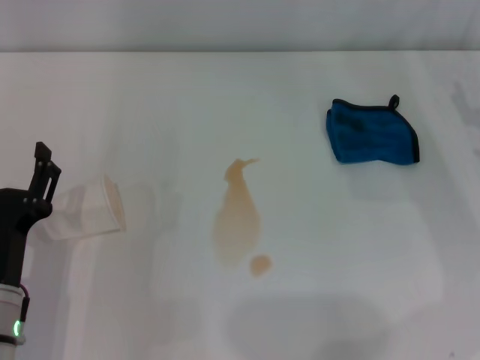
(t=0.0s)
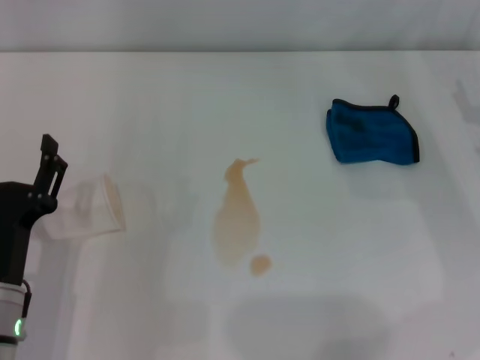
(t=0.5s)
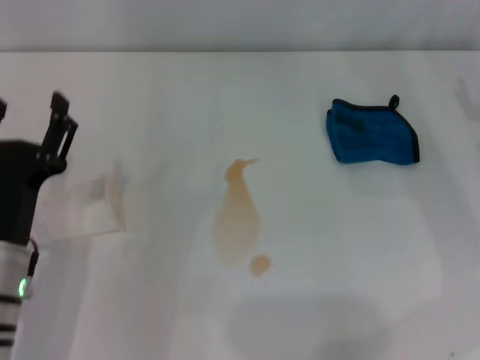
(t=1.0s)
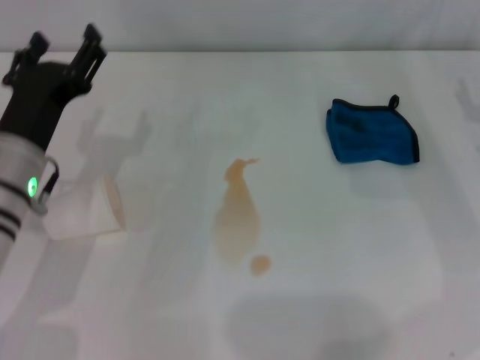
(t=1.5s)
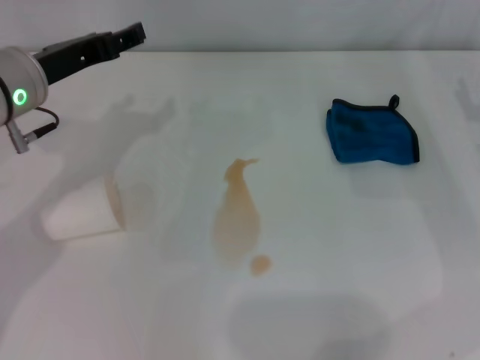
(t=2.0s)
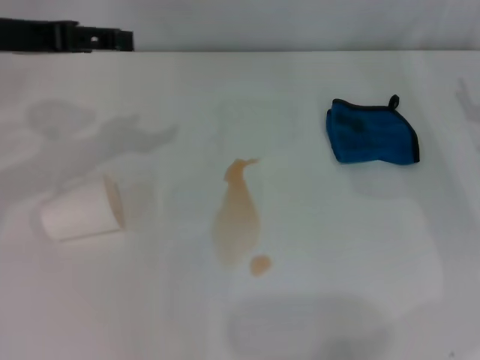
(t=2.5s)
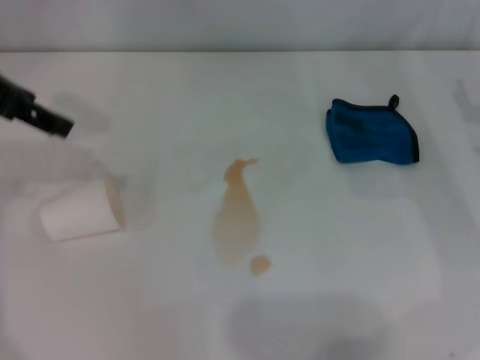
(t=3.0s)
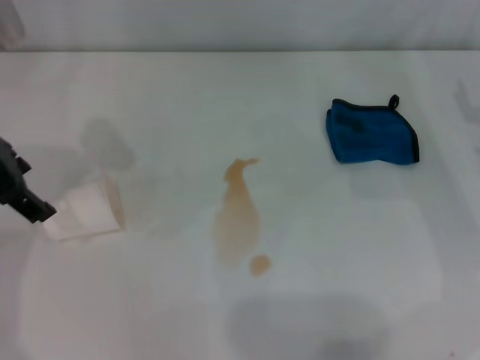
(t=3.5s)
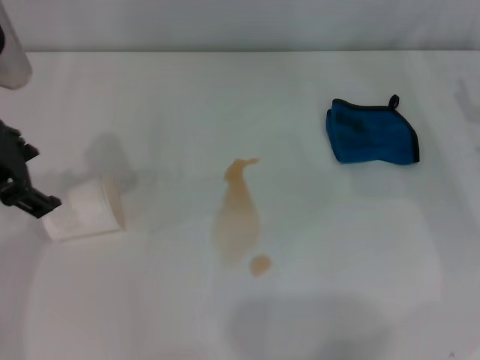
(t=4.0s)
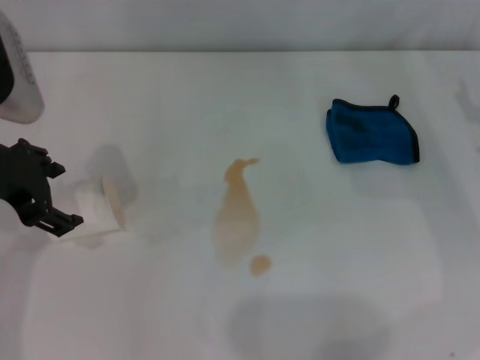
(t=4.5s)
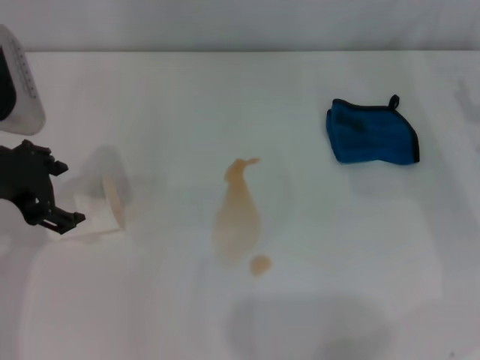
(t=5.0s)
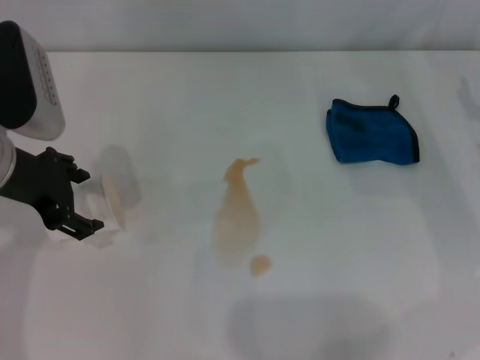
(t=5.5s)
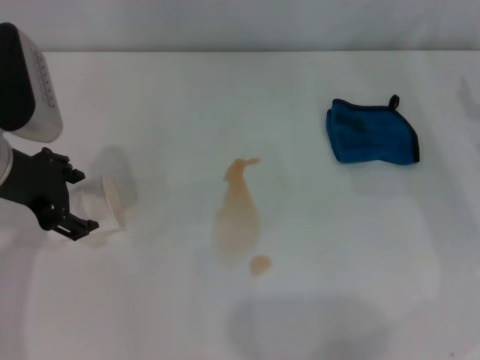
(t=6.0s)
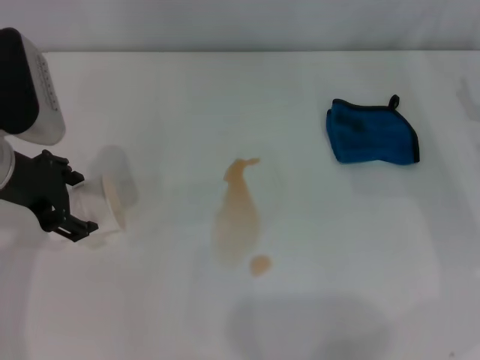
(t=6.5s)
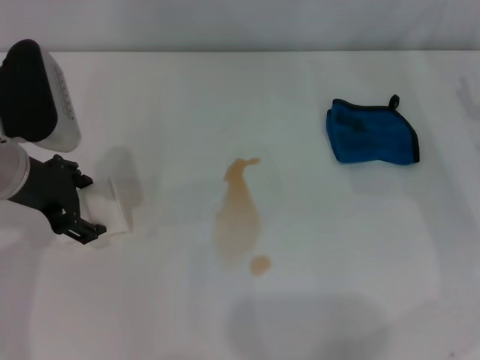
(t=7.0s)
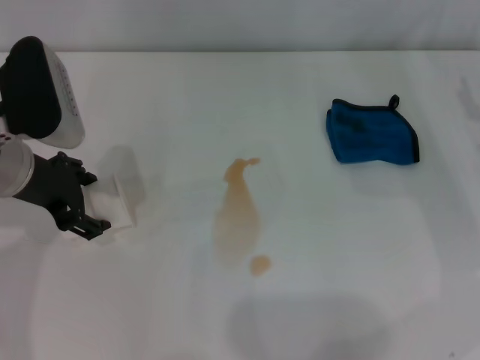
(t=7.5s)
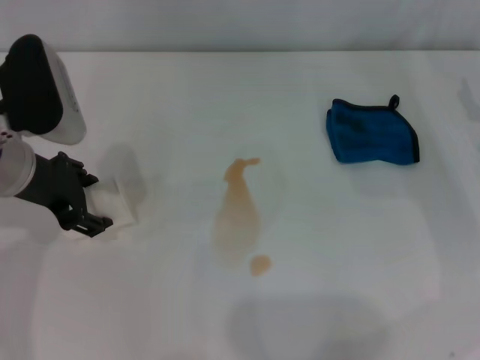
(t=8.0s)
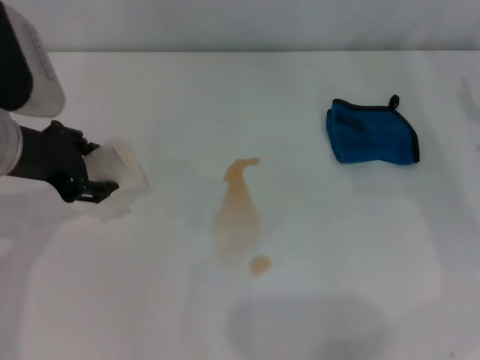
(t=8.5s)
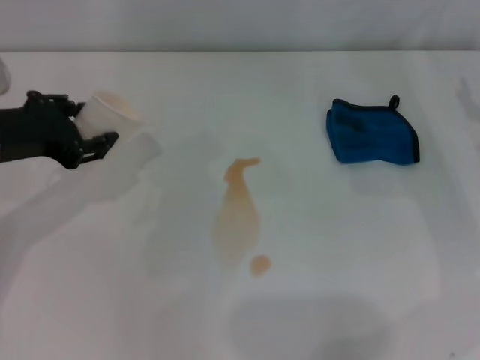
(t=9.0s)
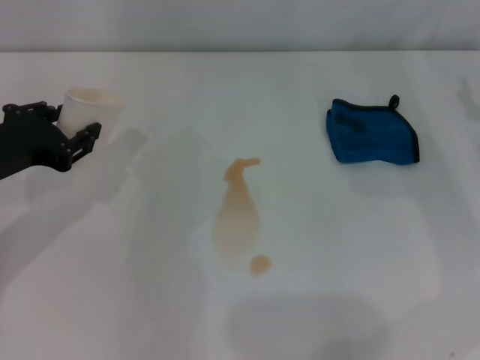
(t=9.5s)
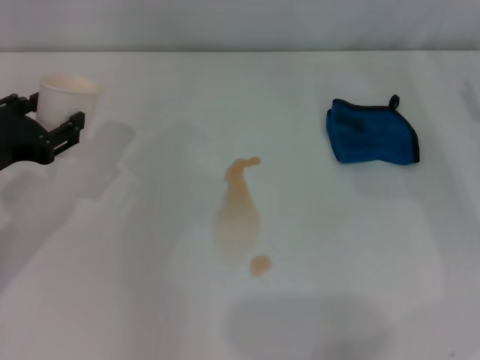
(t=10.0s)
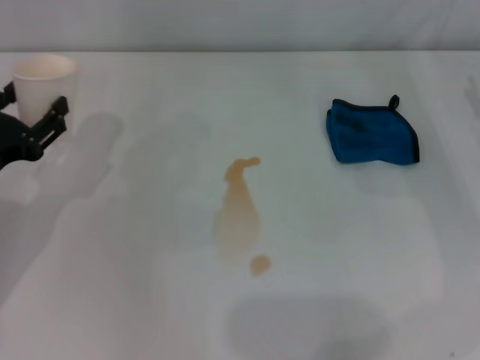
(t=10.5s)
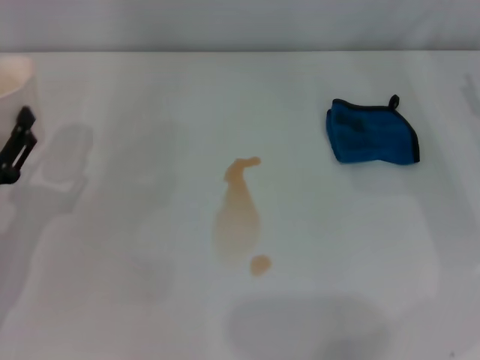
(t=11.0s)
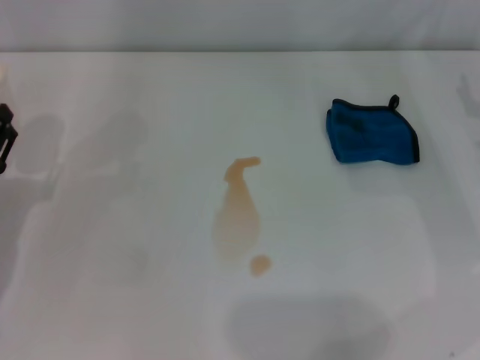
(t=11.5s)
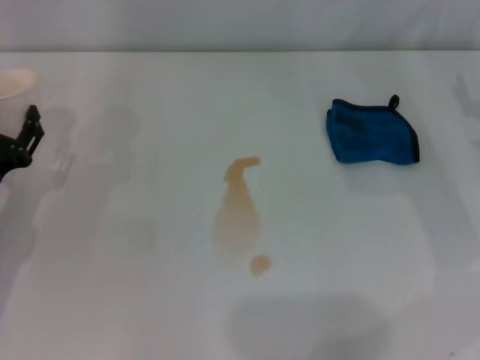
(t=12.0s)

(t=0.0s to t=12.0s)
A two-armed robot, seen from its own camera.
Step, t=0.0s - t=7.5s: Grasp the paper cup with the left gripper.
t=0.0s - t=2.0s: The left gripper travels forward and upward by roughly 20 cm.
t=2.0s - t=4.0s: The left gripper travels upward by roughly 5 cm.
t=4.0s - t=6.0s: The left gripper shifts roughly 5 cm downward.
t=6.0s - t=8.0s: The grippers make only small movements.
t=8.0s - t=10.0s: The left gripper shifts approximately 5 cm backward, and closes.
t=10.0s - t=12.0s: The left gripper shifts some 10 cm downward, and opens up.

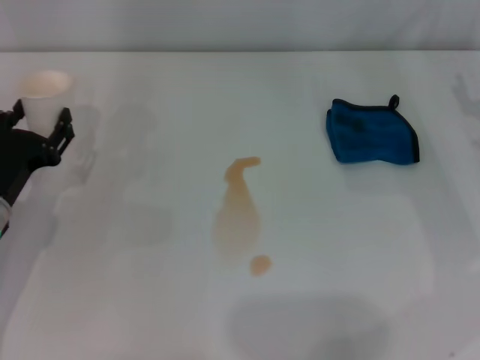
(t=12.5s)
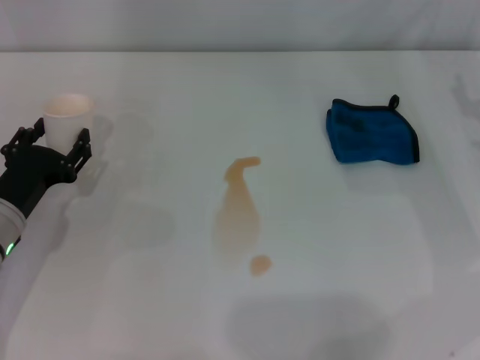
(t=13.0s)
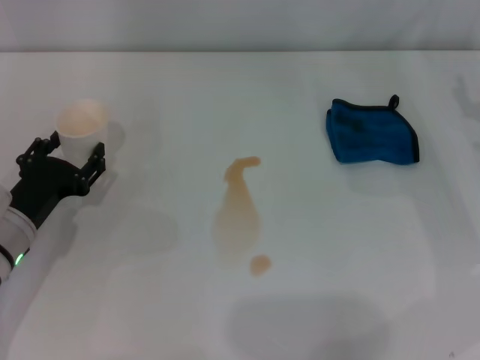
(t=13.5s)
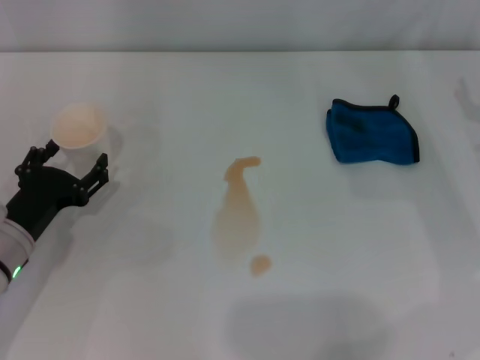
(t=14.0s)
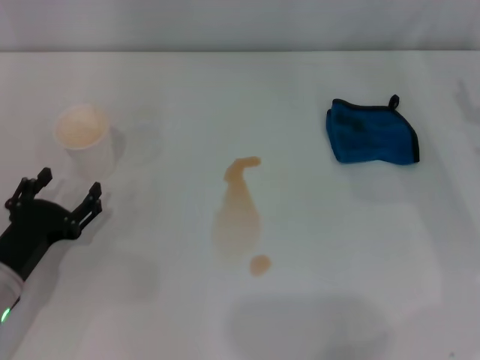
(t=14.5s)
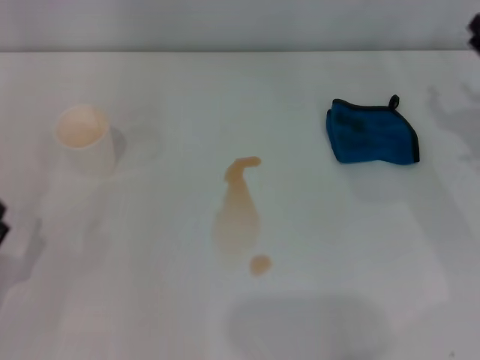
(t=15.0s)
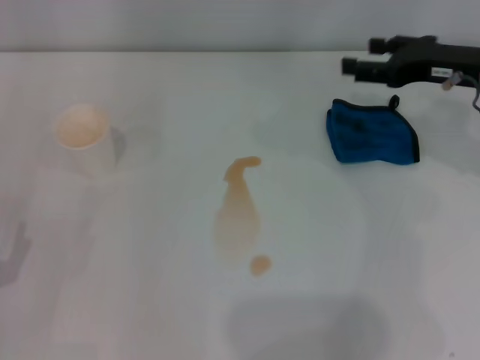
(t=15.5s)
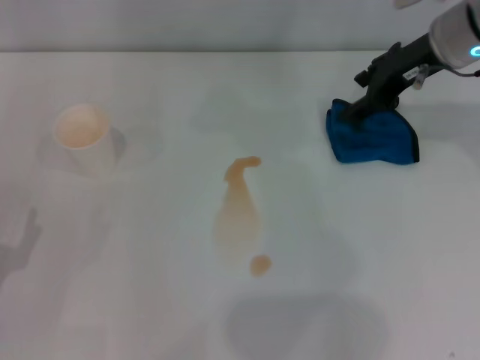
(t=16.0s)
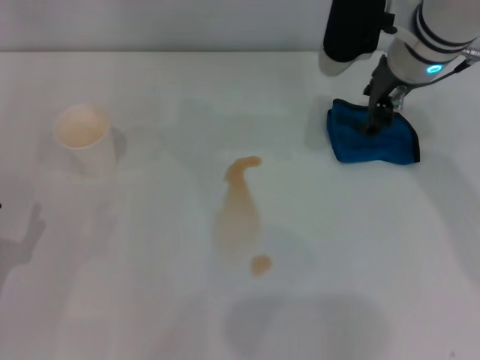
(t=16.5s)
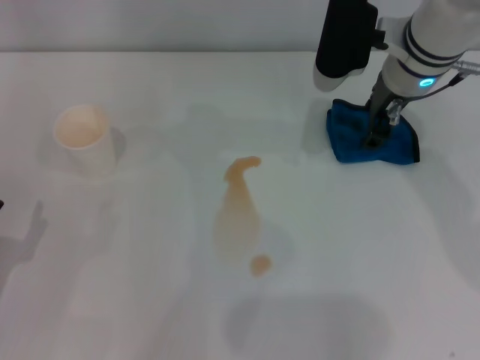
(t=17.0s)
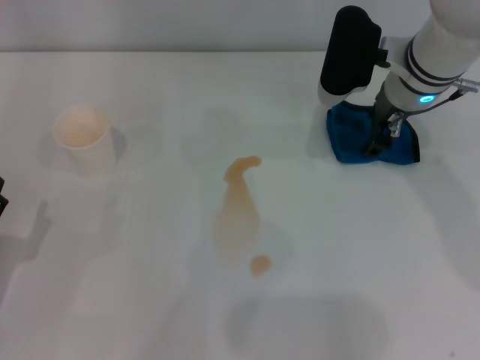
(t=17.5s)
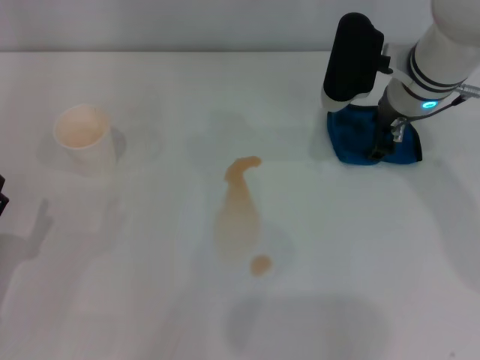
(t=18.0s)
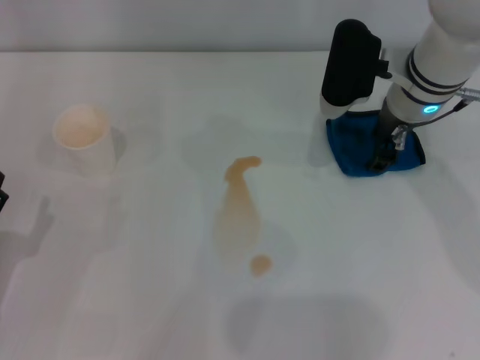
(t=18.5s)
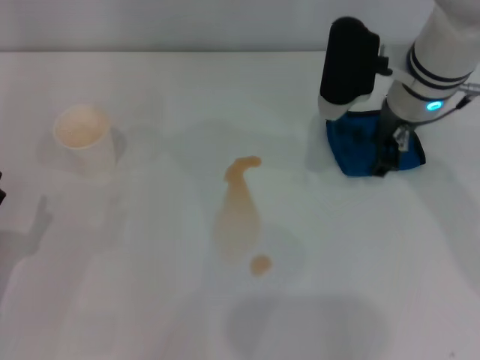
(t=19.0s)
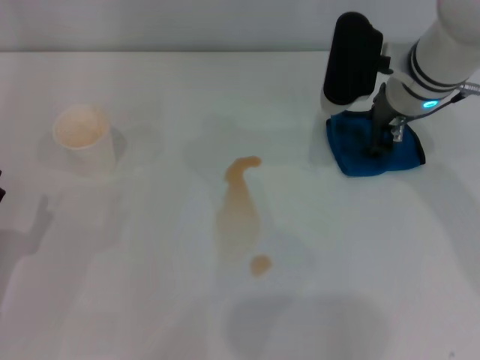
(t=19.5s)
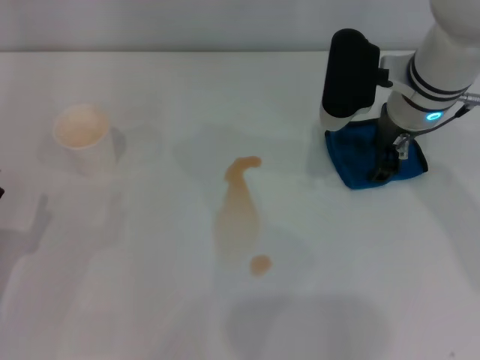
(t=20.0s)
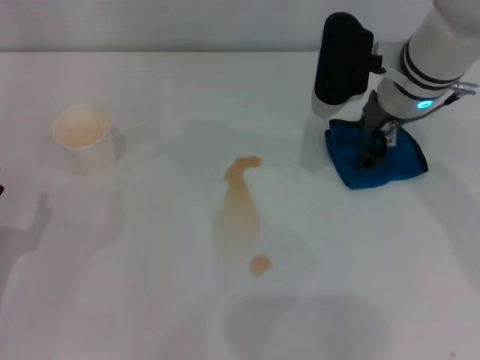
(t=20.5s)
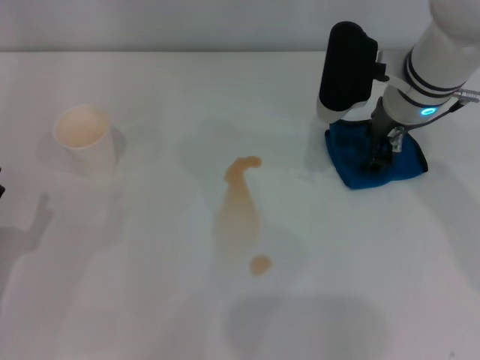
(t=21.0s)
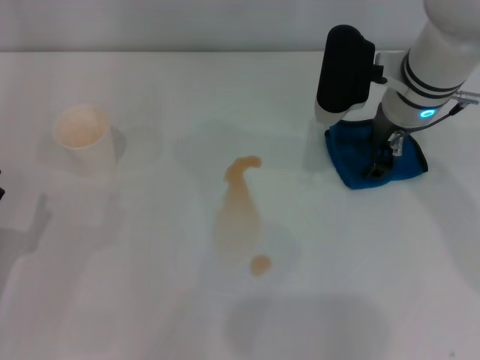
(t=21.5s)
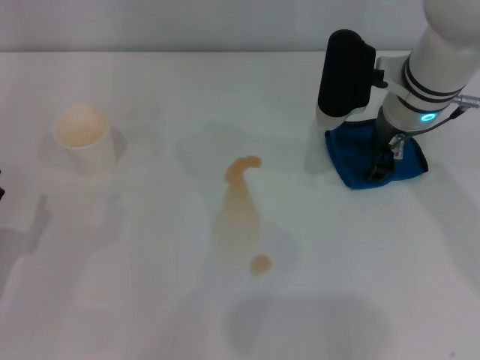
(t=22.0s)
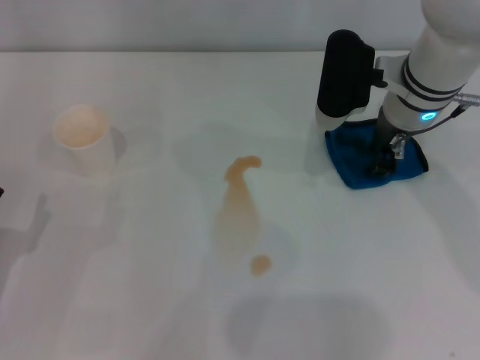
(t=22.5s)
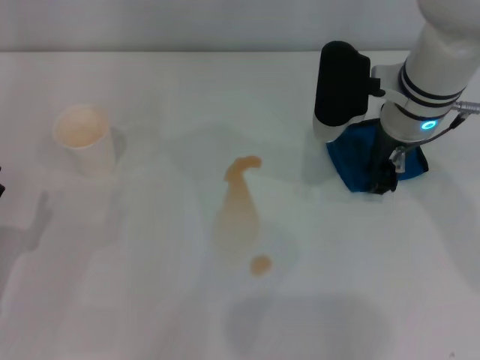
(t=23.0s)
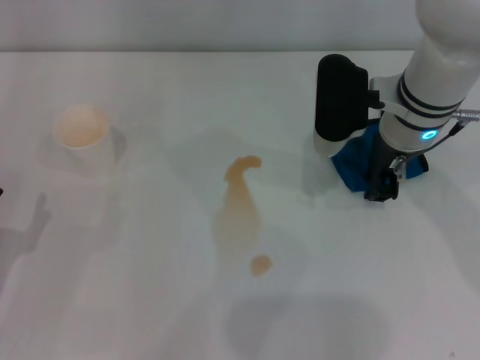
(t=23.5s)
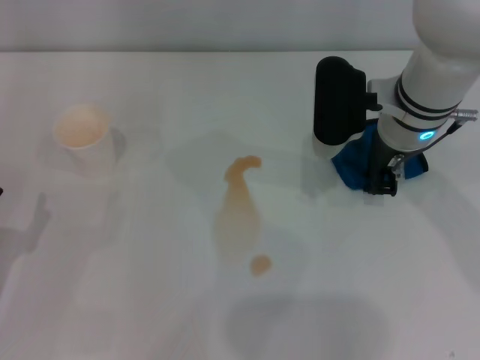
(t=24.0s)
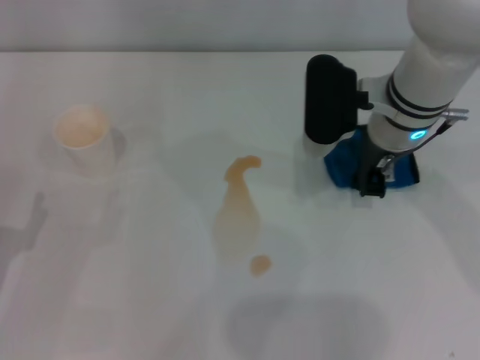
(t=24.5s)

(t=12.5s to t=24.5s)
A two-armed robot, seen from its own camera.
Step, t=14.0s - t=24.0s: Grasp the rag with the right gripper.
t=12.5s - t=14.5s: The left gripper heads backward, covering some 5 cm, and opens its fingers.
t=14.5s - t=16.5s: The right gripper shifts some 25 cm to the left, forward and upward. Meanwhile the left gripper shifts approximately 5 cm backward.
t=16.5s - t=22.5s: There are only small adjustments of the grippers.
t=22.5s - t=24.5s: The right gripper closes up.

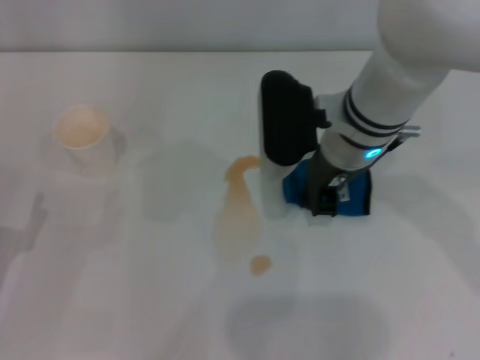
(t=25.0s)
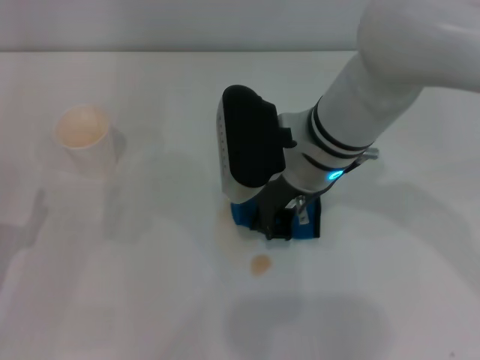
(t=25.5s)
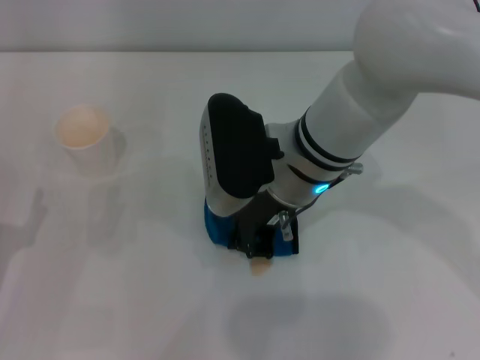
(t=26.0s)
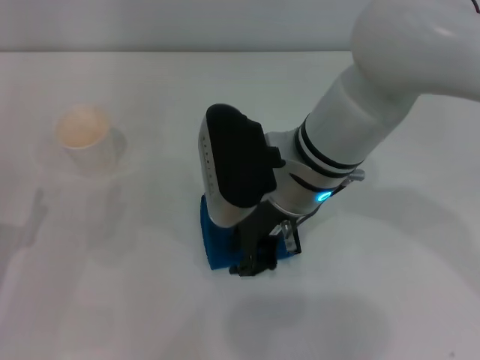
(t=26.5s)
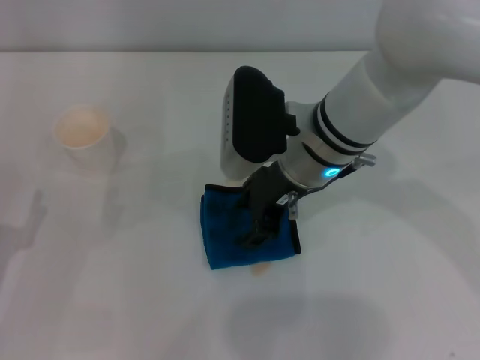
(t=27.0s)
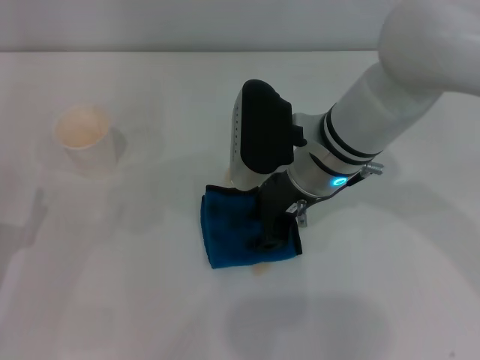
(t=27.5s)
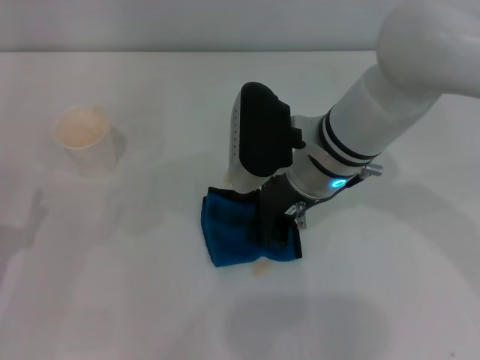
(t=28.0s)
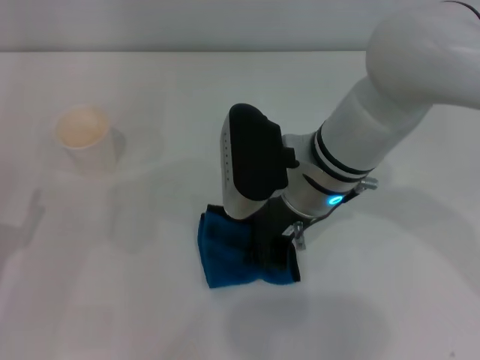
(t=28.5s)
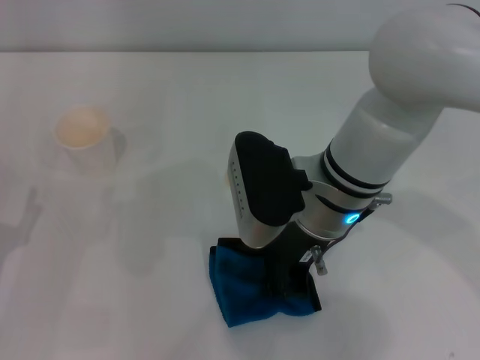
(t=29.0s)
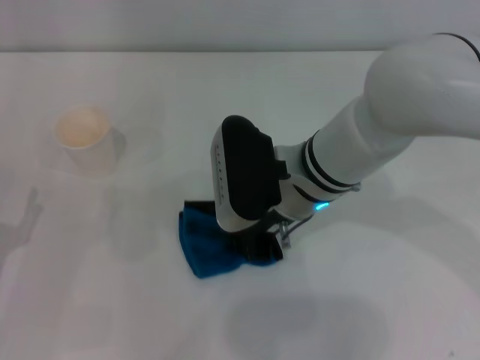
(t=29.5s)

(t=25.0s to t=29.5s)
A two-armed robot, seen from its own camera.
t=25.0s - t=27.0s: The right gripper opens its fingers.
t=27.0s - t=29.5s: The right gripper closes.
